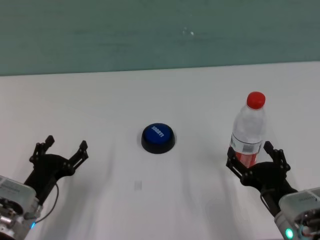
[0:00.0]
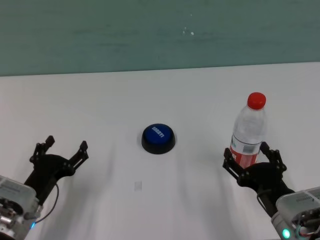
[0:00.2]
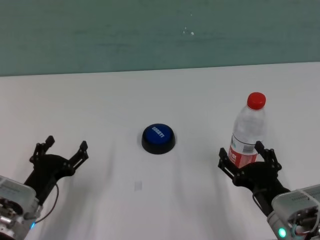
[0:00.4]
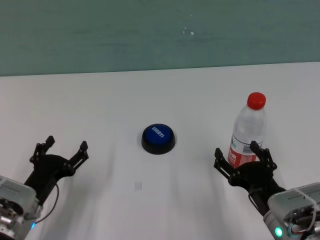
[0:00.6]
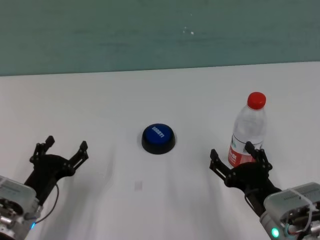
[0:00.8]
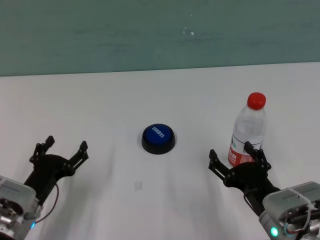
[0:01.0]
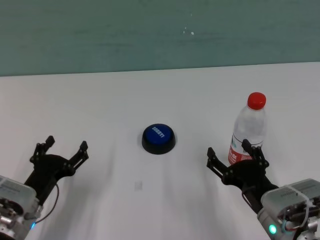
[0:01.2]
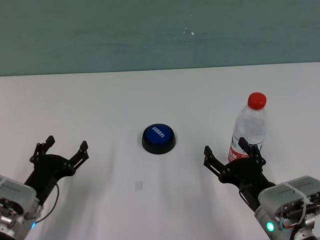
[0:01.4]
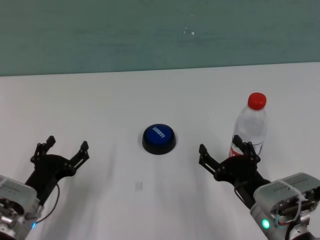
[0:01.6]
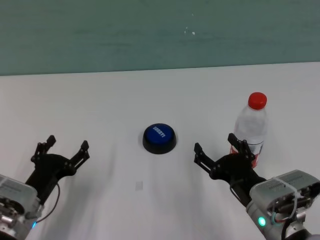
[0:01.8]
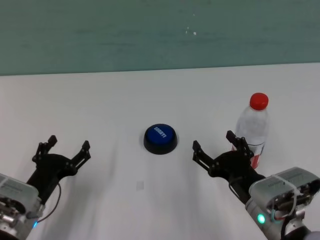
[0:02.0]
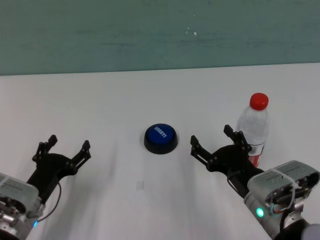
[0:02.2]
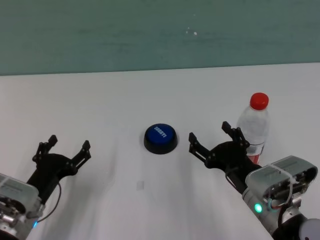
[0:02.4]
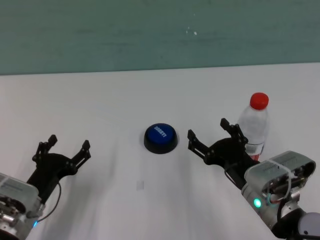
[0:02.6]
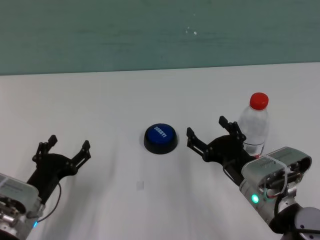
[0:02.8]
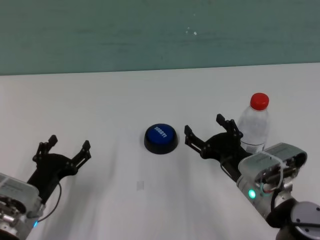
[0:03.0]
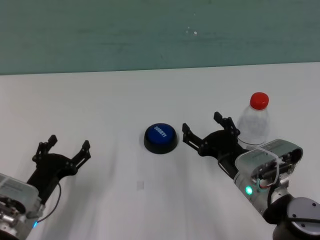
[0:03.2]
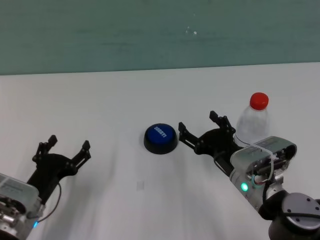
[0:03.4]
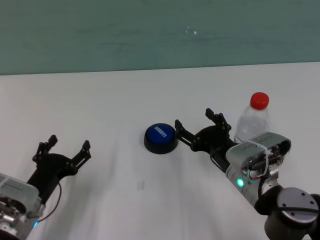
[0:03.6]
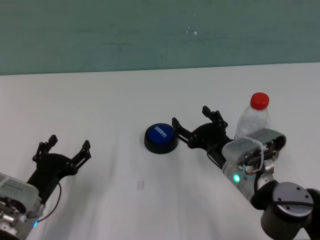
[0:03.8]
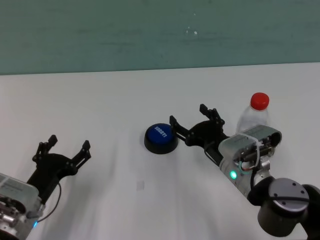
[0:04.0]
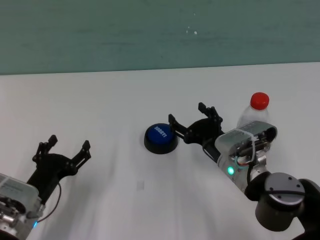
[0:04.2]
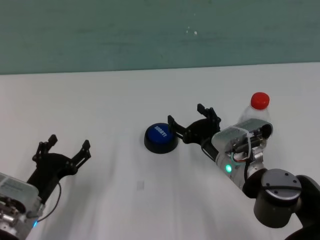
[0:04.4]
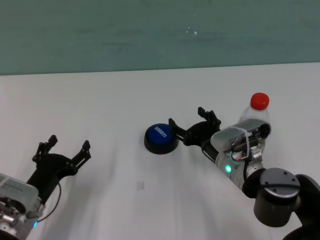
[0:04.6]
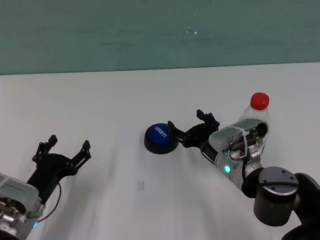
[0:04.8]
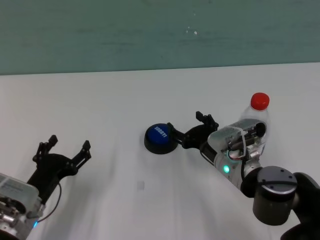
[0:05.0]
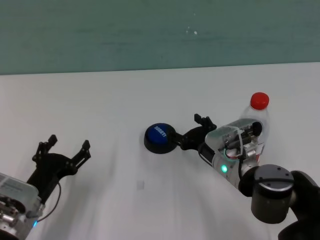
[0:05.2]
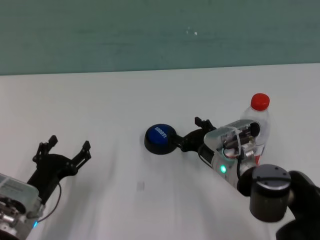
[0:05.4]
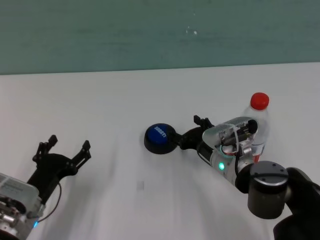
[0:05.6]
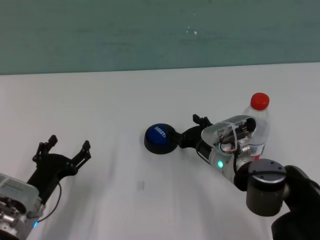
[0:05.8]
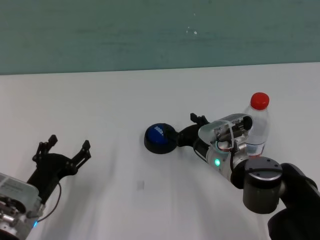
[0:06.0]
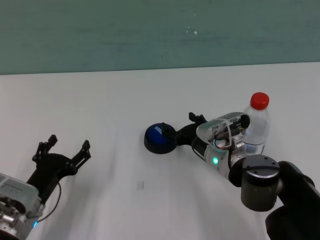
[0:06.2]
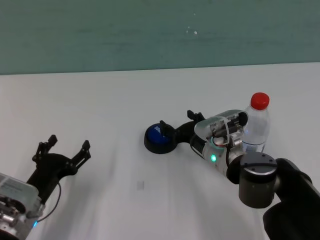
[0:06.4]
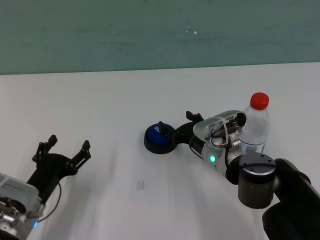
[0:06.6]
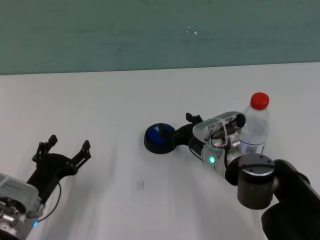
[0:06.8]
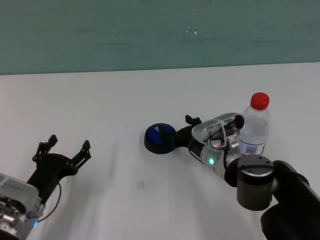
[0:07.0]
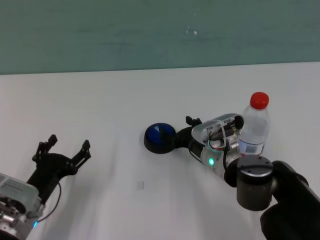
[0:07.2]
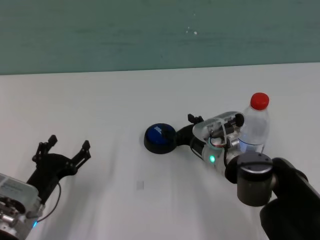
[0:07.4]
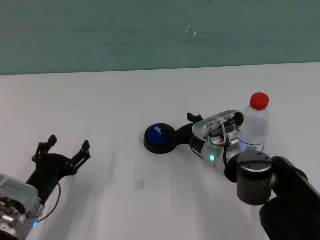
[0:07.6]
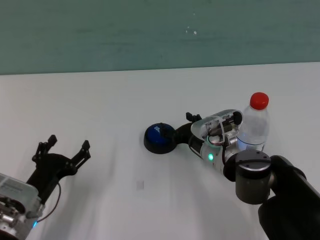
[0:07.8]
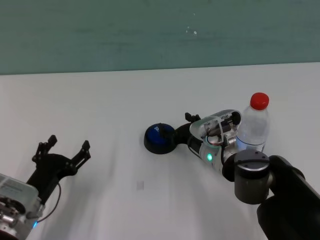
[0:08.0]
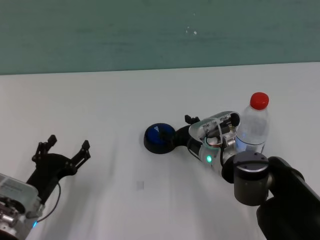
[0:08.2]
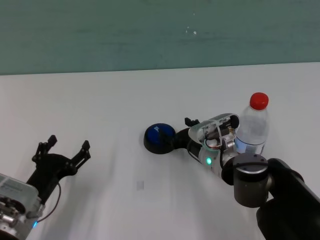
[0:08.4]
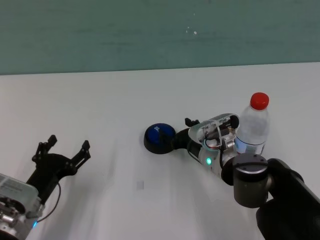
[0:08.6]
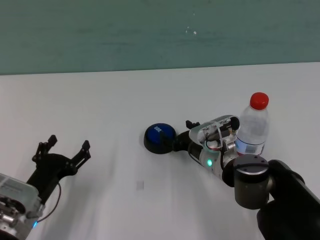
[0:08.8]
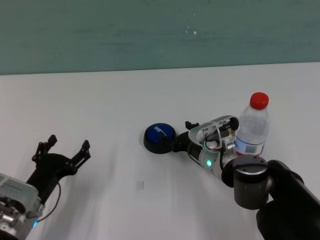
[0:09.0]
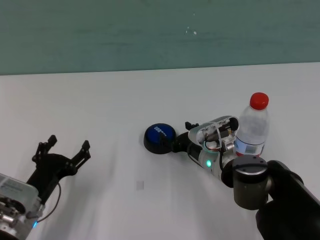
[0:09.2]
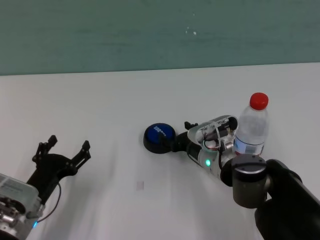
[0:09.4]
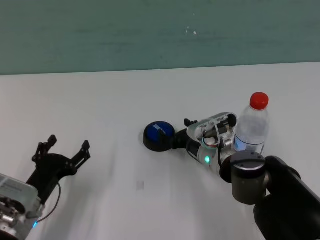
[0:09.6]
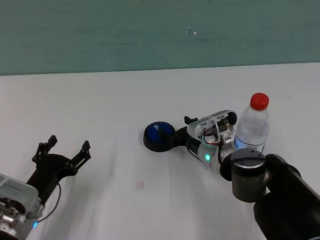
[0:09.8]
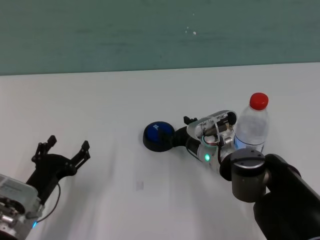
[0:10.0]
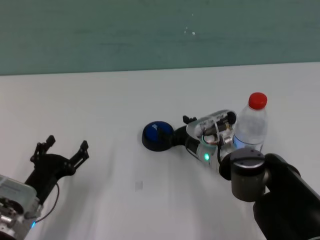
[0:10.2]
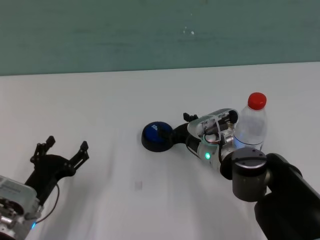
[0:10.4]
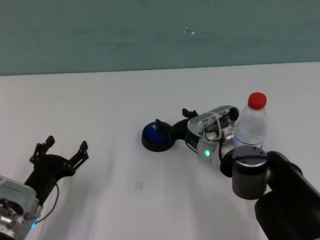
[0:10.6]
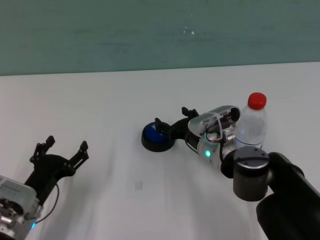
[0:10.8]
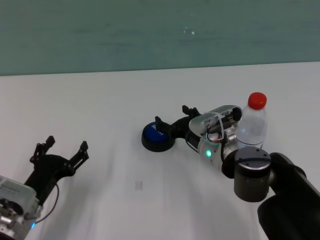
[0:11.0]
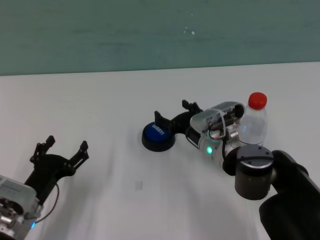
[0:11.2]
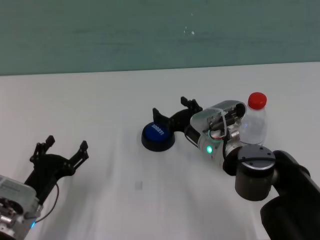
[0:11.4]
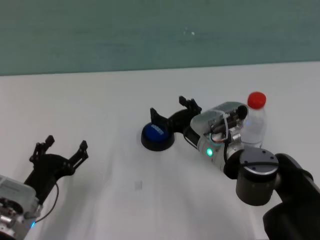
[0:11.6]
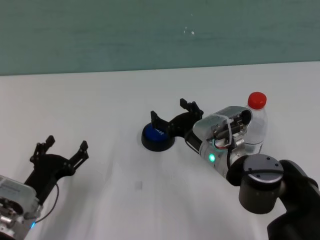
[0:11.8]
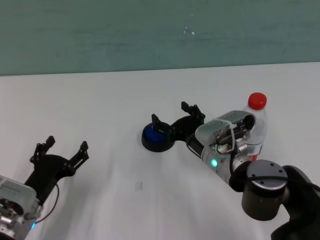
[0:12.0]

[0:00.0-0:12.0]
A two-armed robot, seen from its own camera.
Task of the whole recording: after removing the water bottle from the table, press the button.
Step, 0:00.0 to 0:11.4: Press the button with right gripper.
